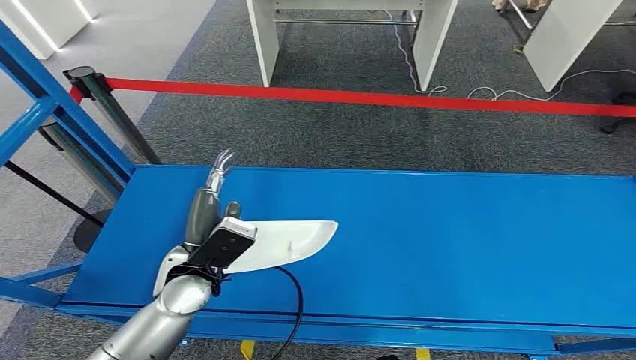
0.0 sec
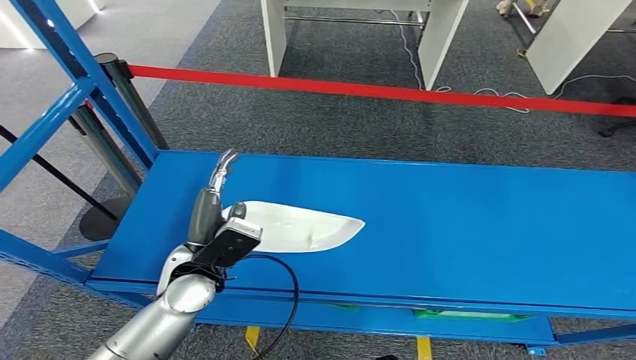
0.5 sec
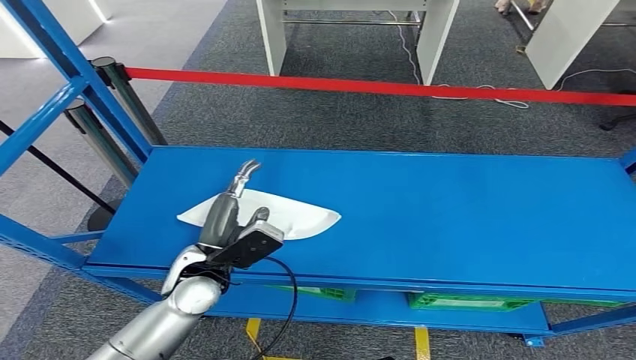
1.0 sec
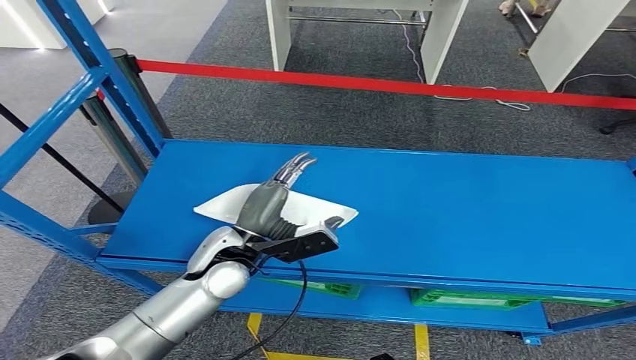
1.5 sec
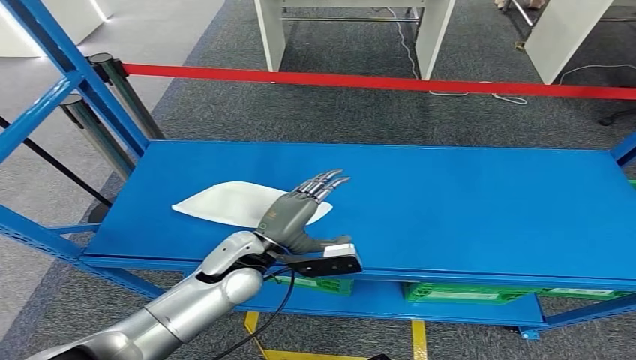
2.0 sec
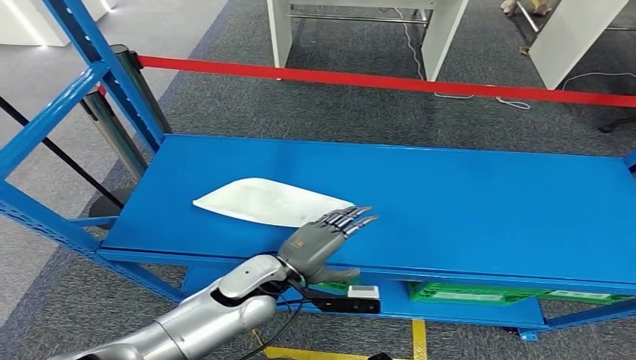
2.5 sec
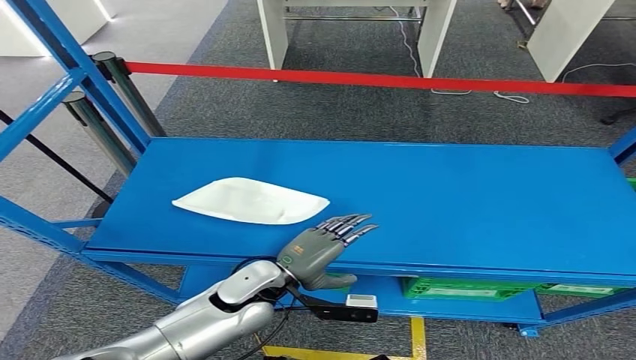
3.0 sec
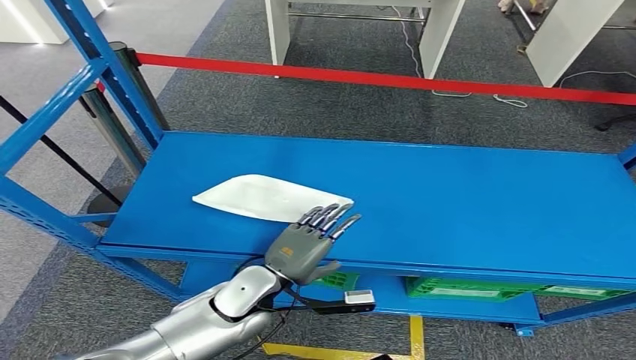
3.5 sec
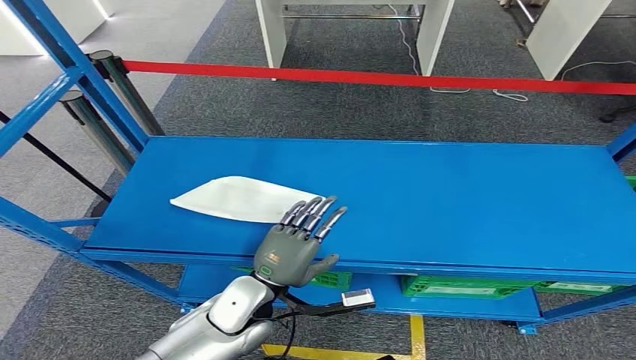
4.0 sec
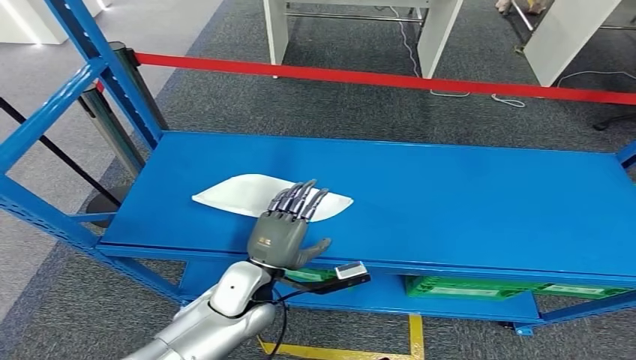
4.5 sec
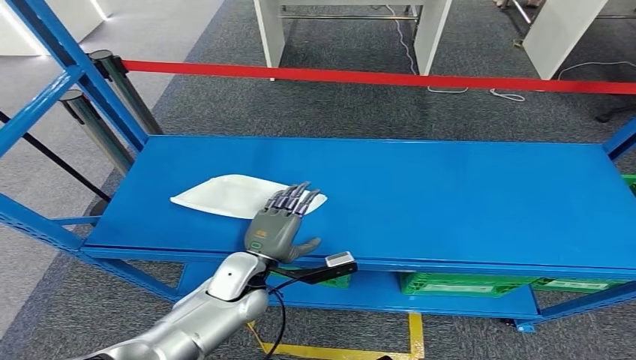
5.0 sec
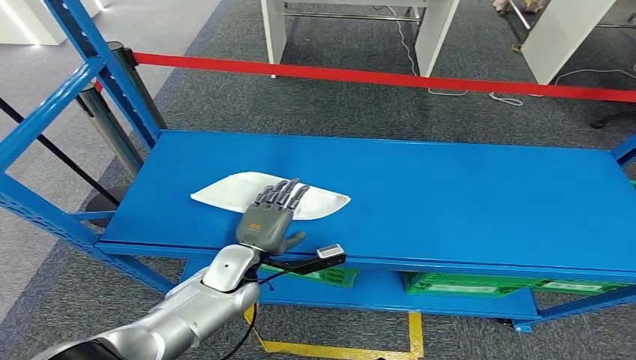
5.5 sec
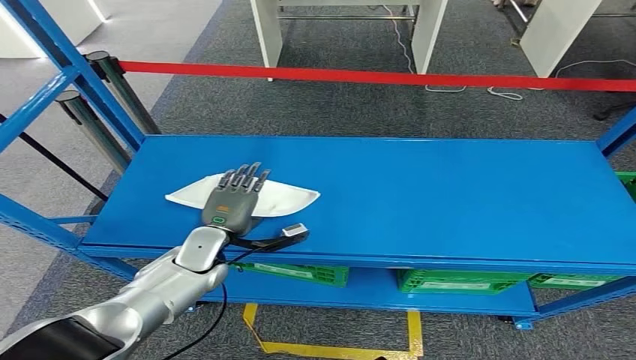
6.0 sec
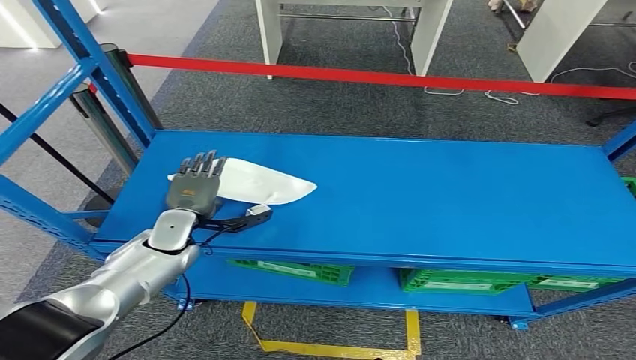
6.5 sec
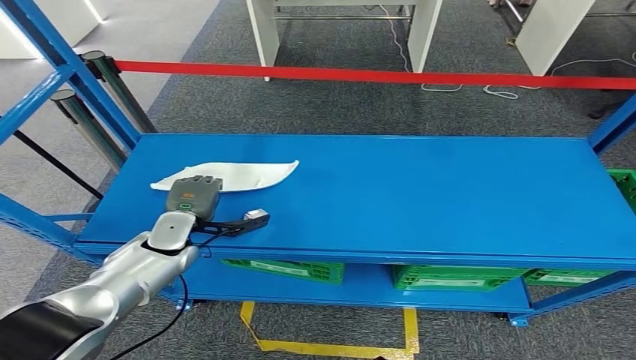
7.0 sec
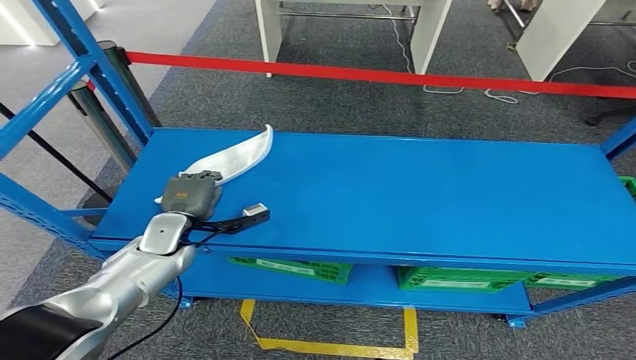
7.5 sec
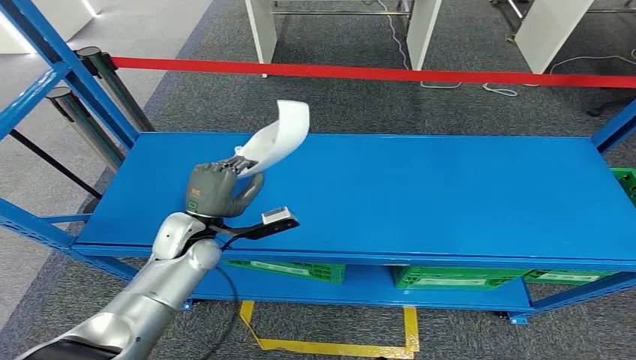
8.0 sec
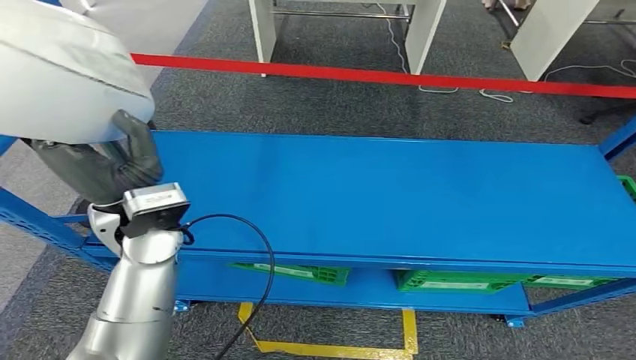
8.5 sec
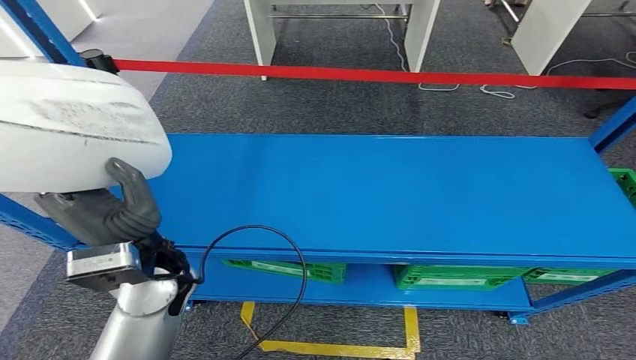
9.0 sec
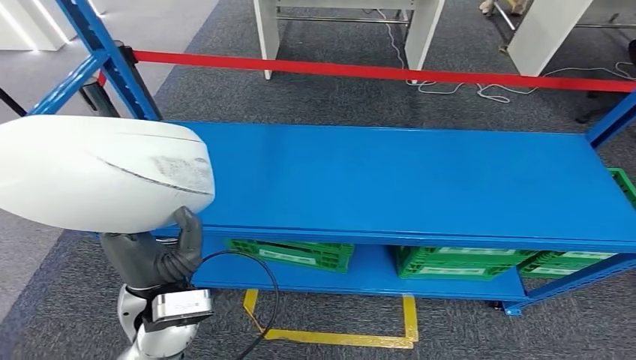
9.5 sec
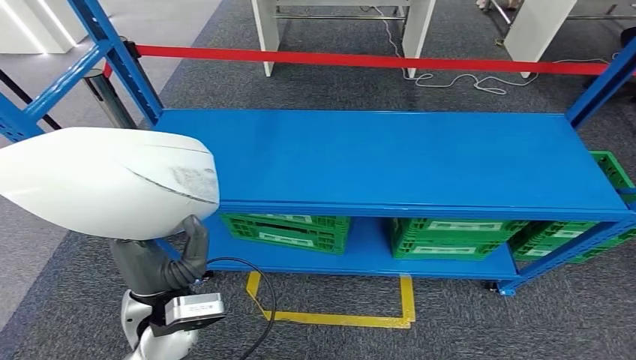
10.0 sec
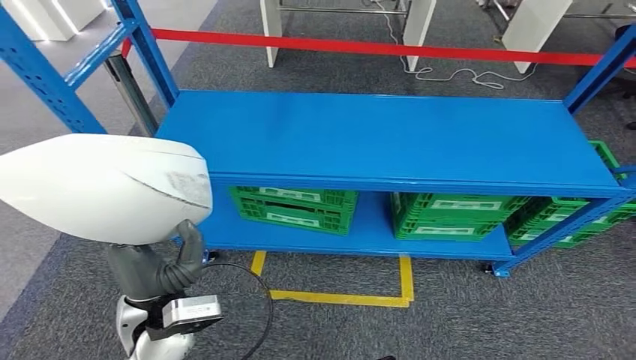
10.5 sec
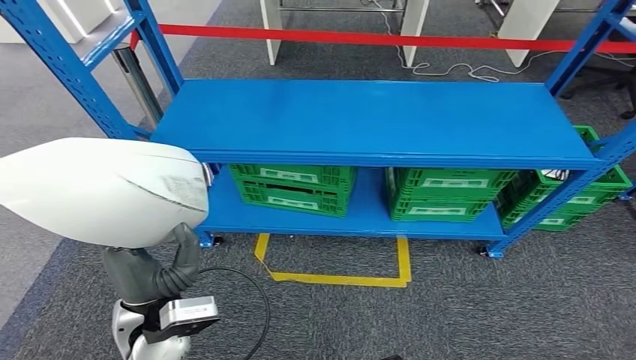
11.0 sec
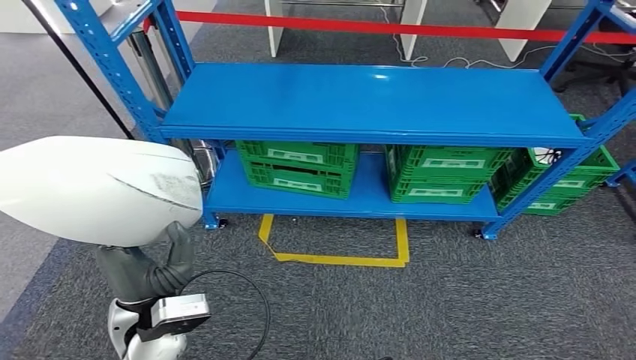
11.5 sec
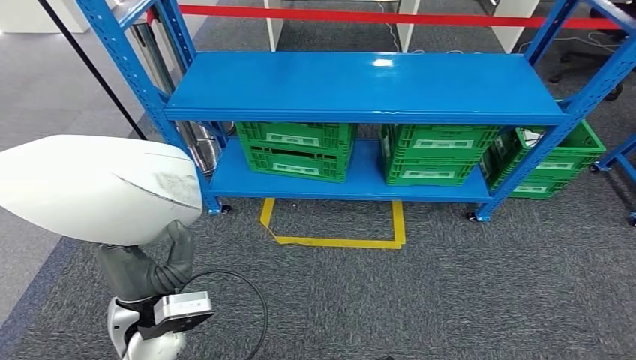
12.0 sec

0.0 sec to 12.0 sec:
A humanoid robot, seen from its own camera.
Step, 0.0 sec to 9.5 sec: Pick up the small component from the shelf.

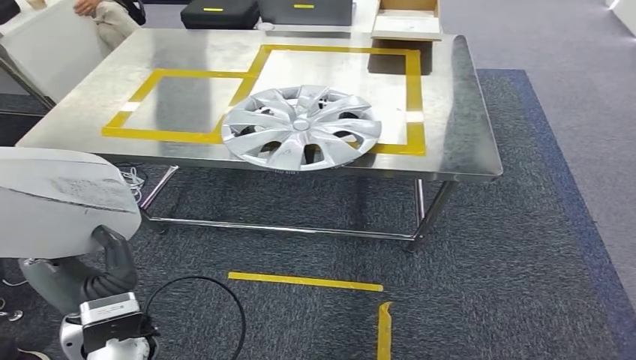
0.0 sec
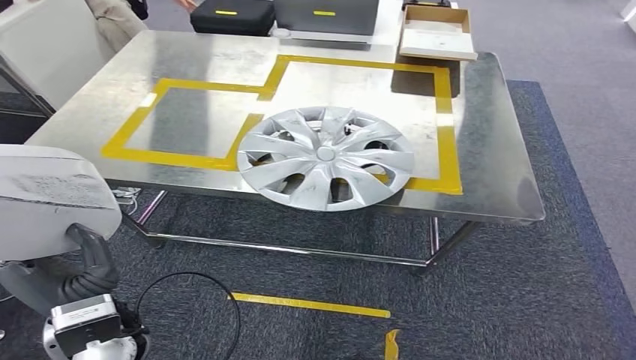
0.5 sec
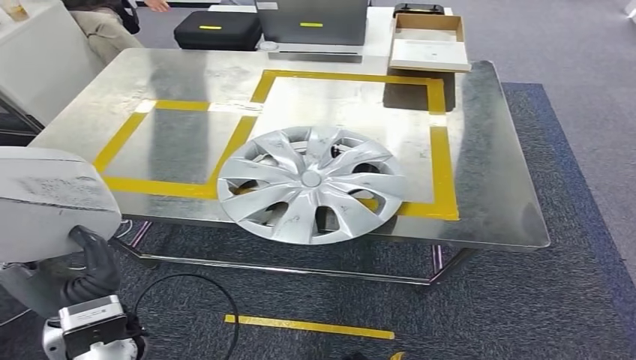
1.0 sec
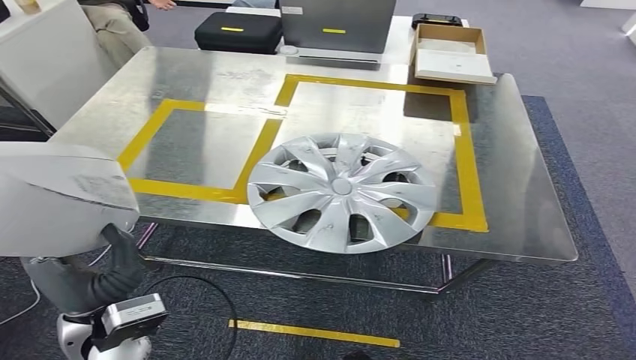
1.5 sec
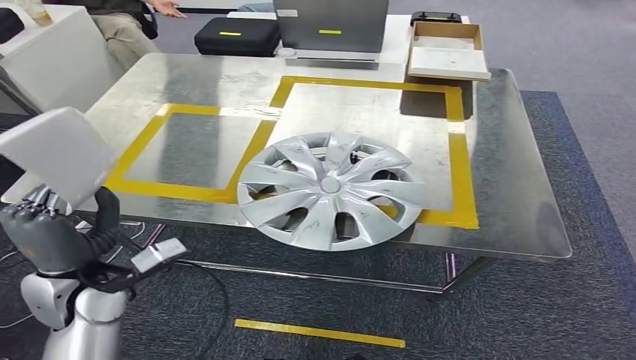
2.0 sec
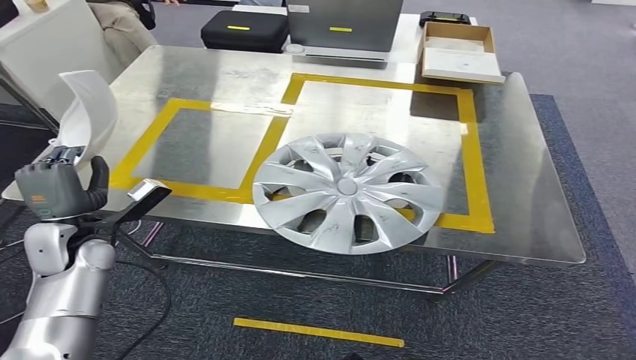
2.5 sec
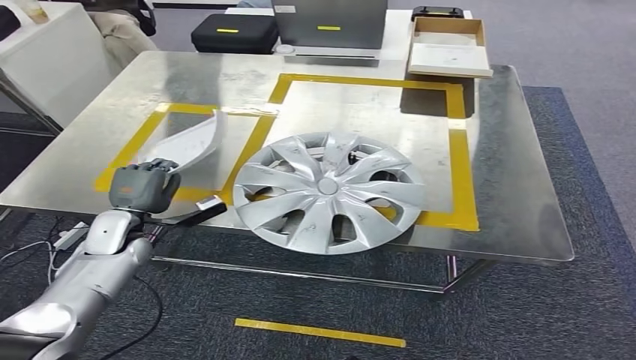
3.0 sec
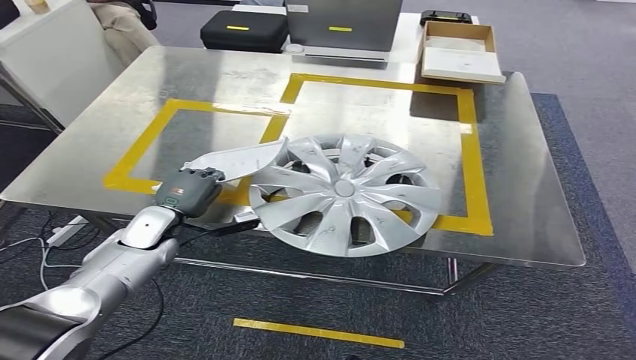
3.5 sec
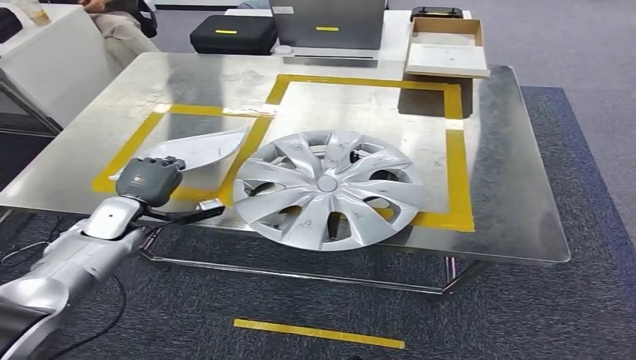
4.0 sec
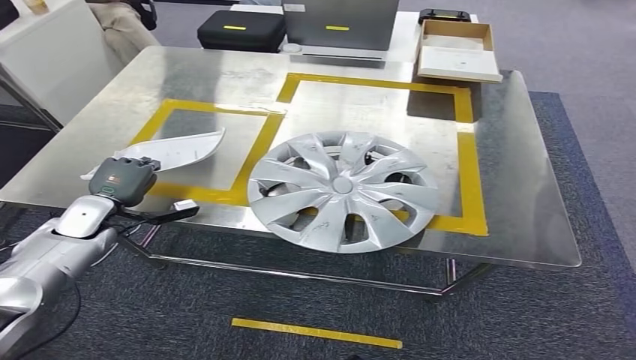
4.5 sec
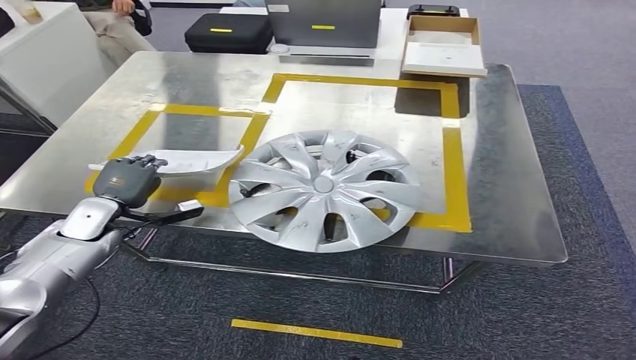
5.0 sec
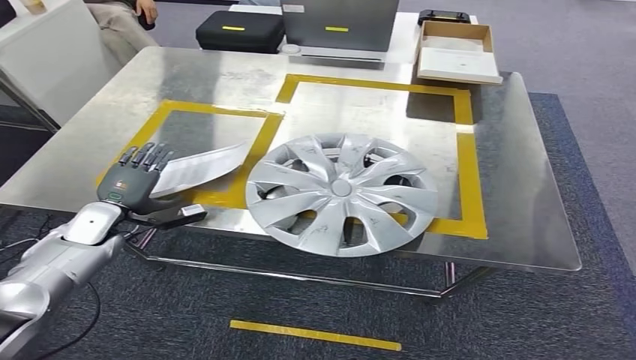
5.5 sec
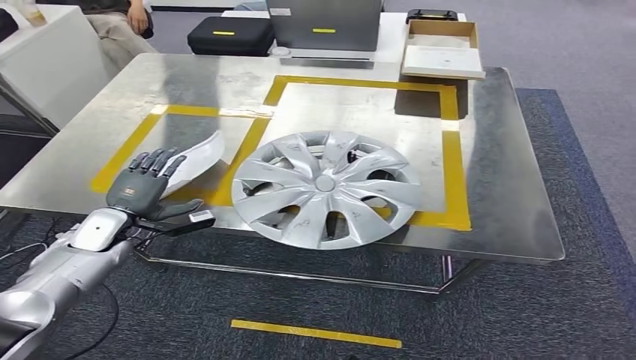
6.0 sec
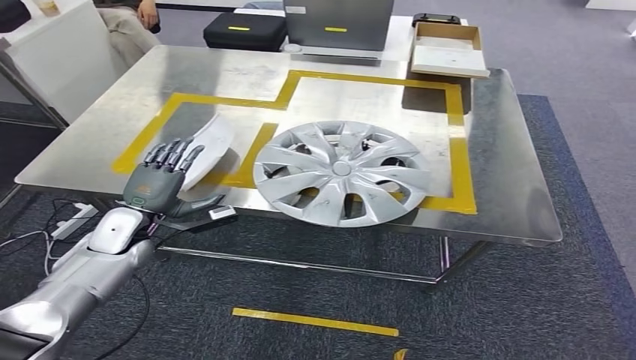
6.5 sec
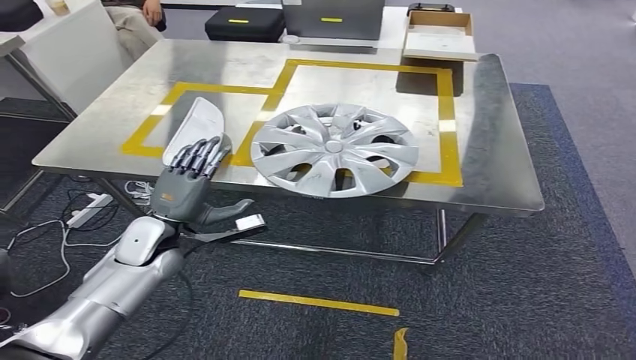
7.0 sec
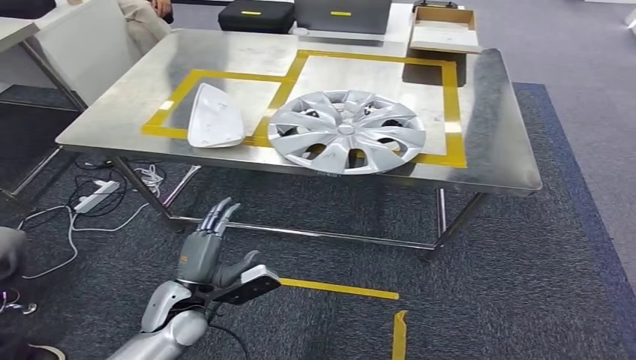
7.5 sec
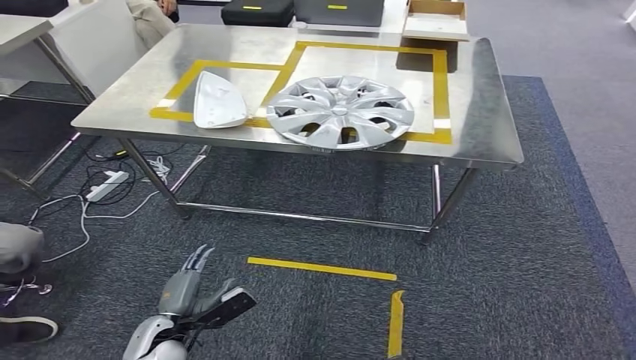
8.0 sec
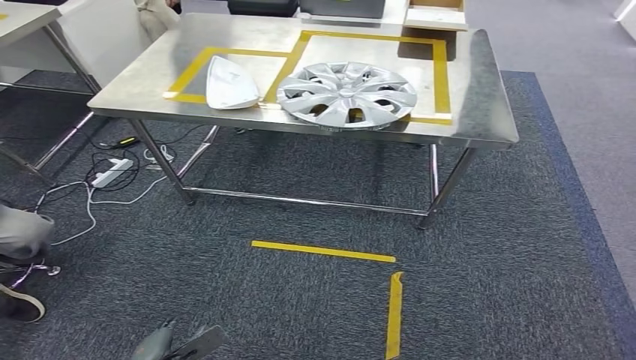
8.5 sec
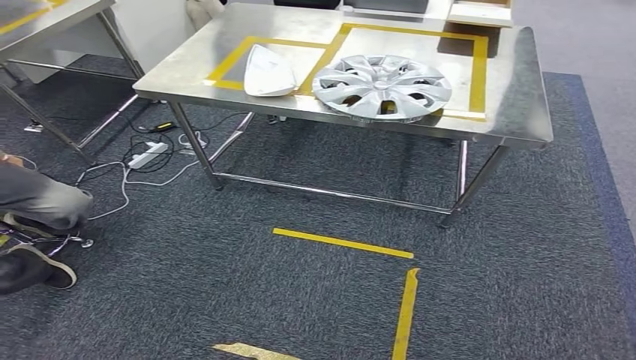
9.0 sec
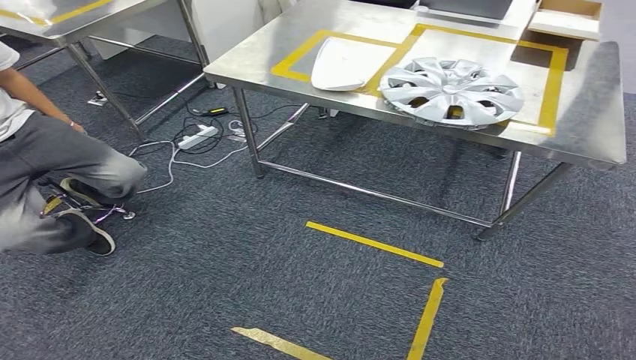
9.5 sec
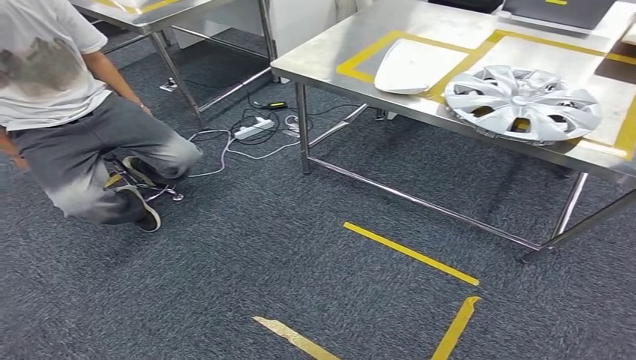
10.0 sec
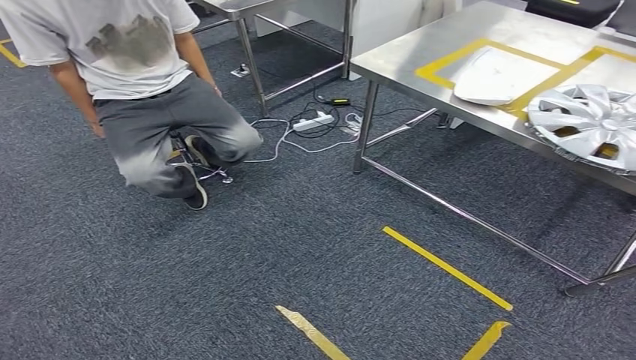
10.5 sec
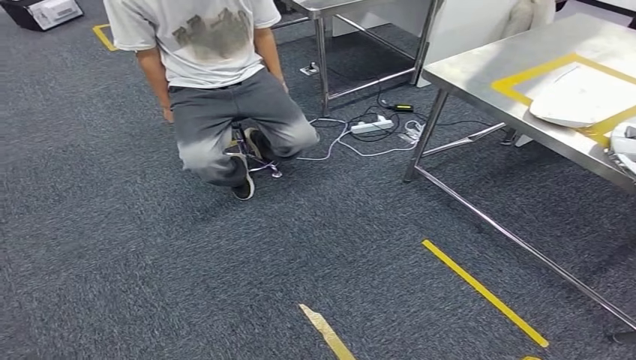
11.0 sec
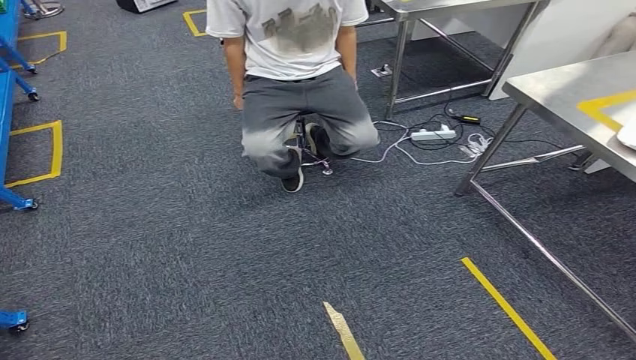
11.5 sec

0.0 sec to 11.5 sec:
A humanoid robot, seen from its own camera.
Step, 1.5 sec to 7.5 sec: Insert the small component into the corresponding slot on the workbench.
4.0 sec to 6.0 sec: The hands stay close to where they were, moving slightly.
